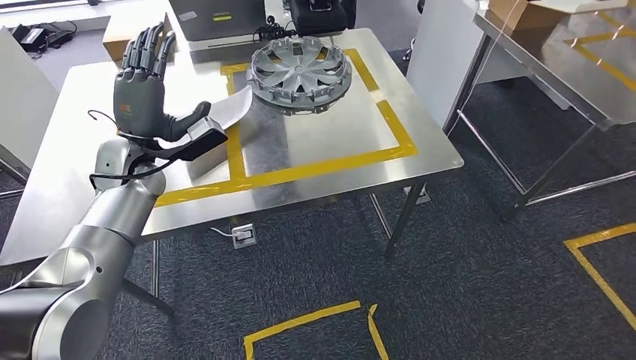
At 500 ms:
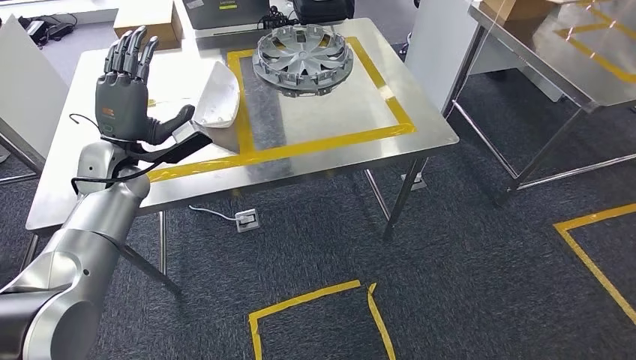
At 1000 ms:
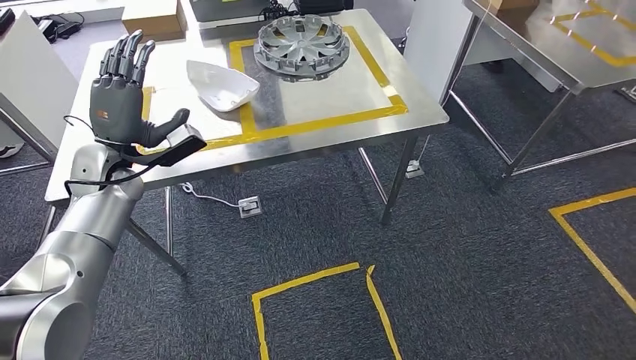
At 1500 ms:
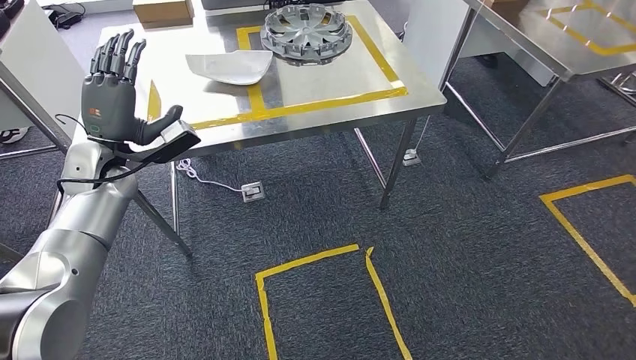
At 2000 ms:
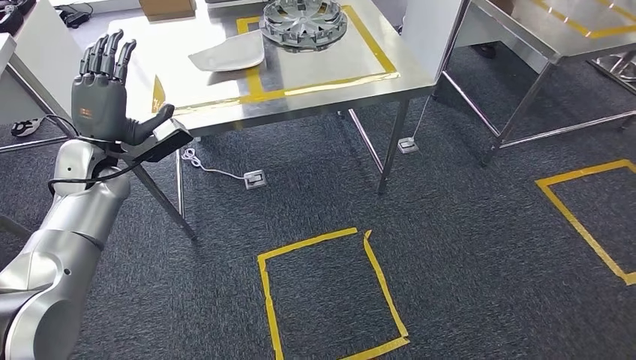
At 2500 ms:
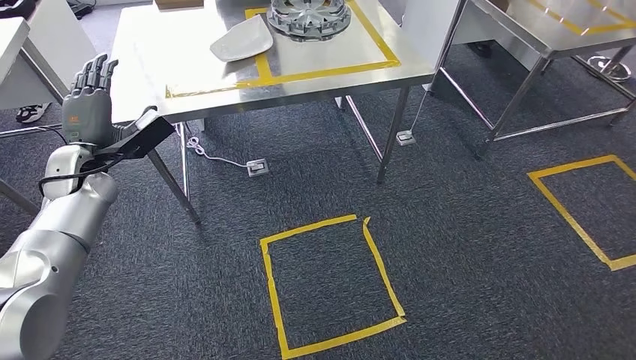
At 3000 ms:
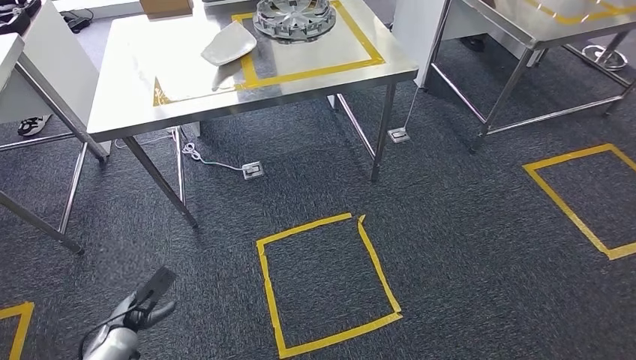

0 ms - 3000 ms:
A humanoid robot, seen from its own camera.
Step, 0 ms - 3000 ms: Move to the initial position of the shelf.
